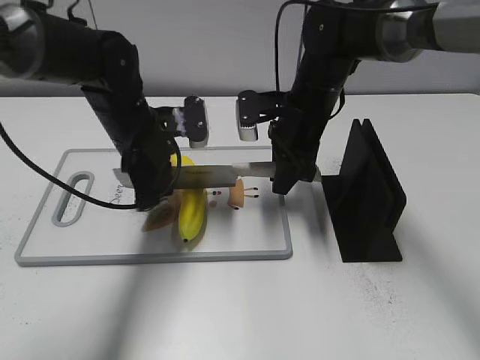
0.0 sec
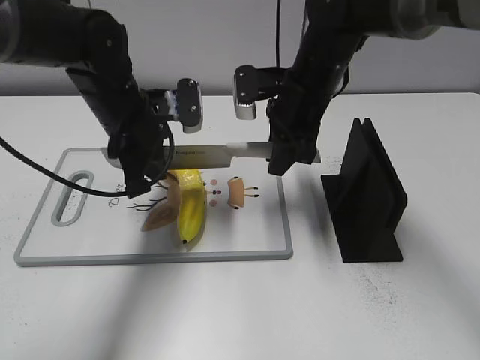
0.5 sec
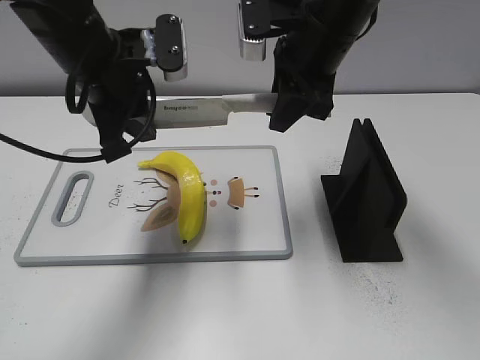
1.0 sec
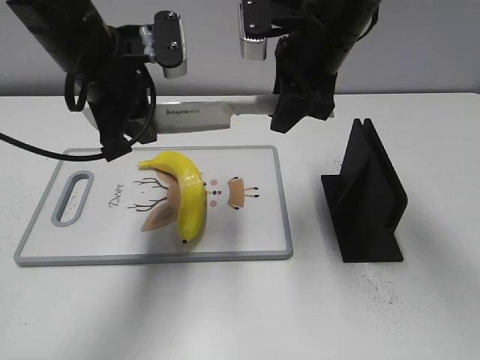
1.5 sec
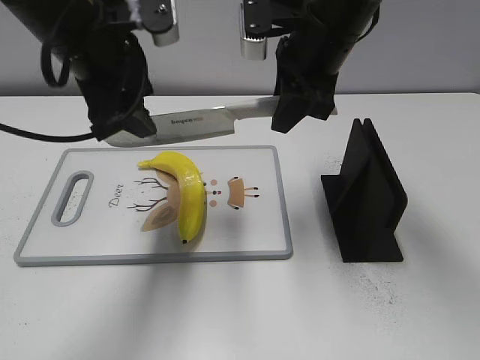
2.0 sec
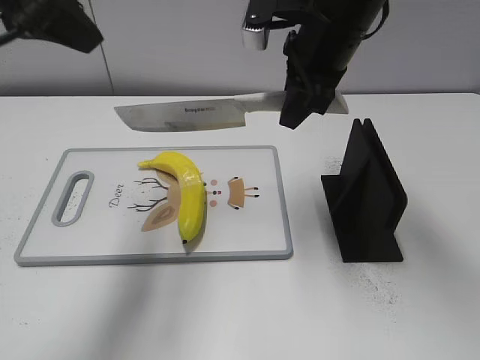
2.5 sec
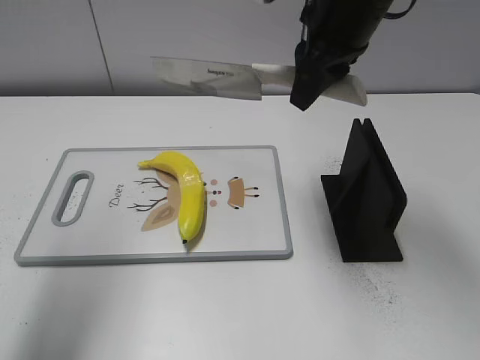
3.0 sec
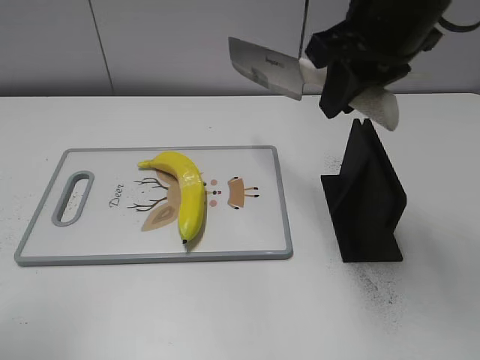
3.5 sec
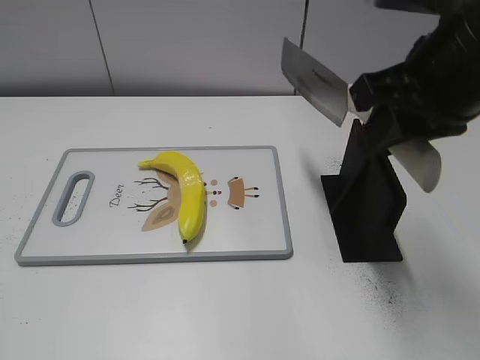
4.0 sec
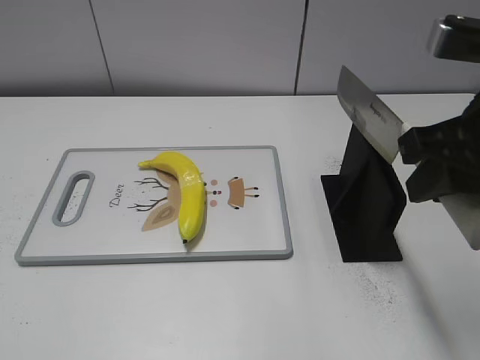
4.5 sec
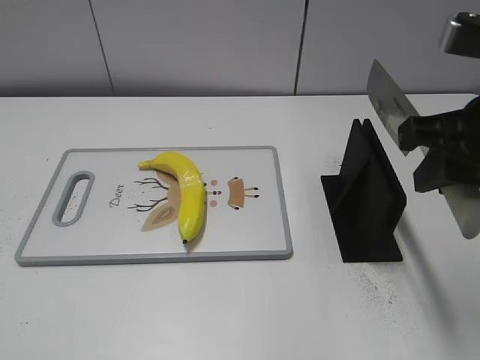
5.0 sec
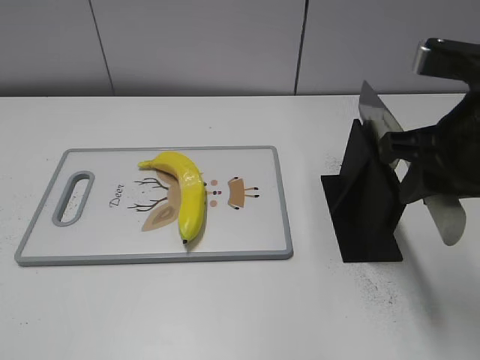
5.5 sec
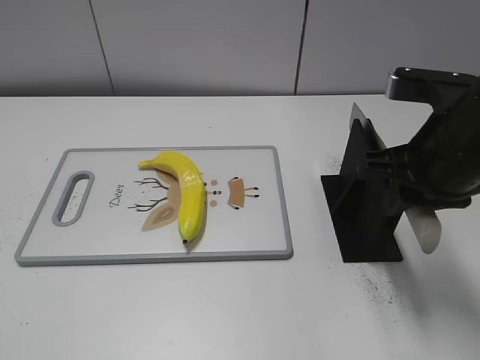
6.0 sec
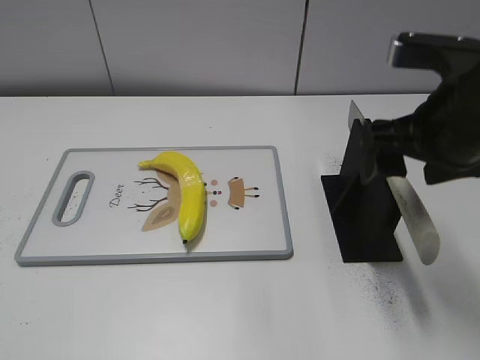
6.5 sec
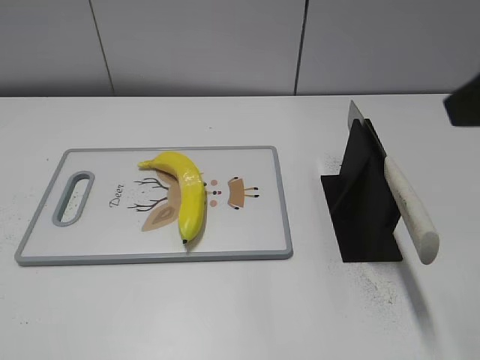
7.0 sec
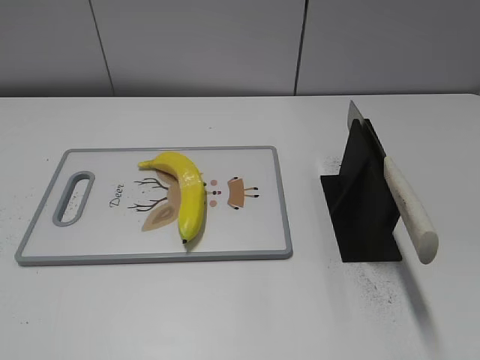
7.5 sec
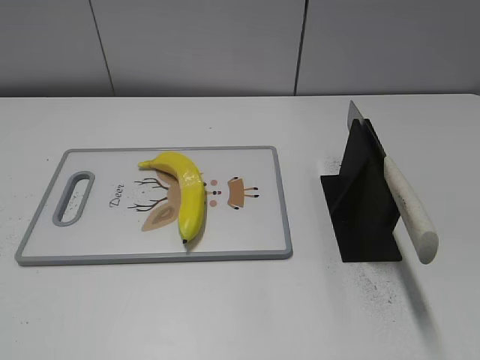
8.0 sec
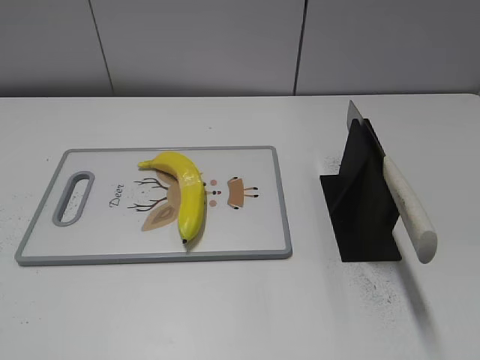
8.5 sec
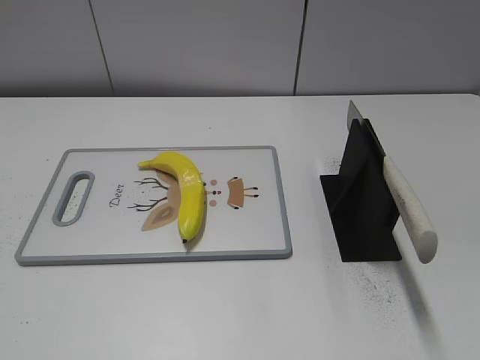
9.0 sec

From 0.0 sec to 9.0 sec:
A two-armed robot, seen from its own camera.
Task of the whole recording: cut plastic banana.
Step, from 2.5 sec to 4.0 sec: Lift the knife with your right hand.
Step, from 4.5 sec to 9.0 sec: Place the knife on the storage rack with your right hand.
From 0.0 sec to 2.0 sec: Both grippers travel together upward, about 15 cm. The left gripper opens up.
From 2.0 sec to 4.5 sec: The right gripper is displaced backward and to the right by approximately 20 cm; the left gripper heads backward and to the left, covering some 40 cm.
From 4.5 sec to 7.0 sec: The right gripper goes roughly 5 cm upward, and opens.
From 7.0 sec to 9.0 sec: The right gripper moves backward, to the right and downward, some 20 cm.
